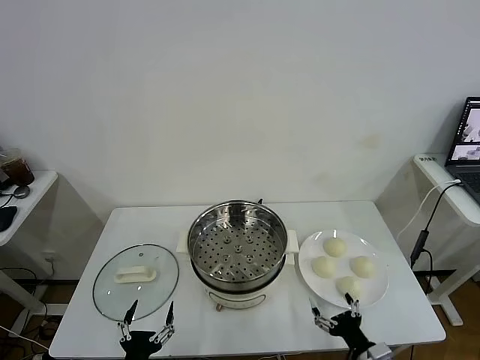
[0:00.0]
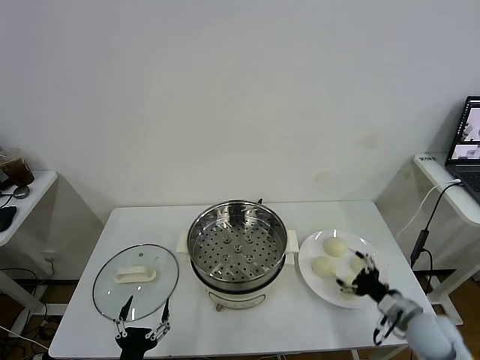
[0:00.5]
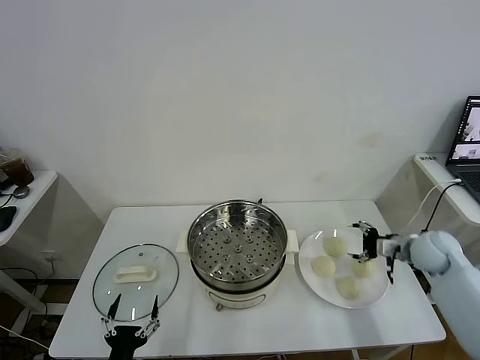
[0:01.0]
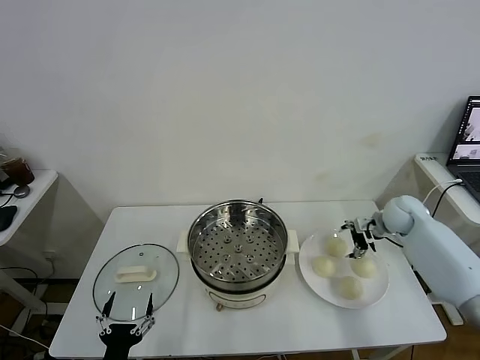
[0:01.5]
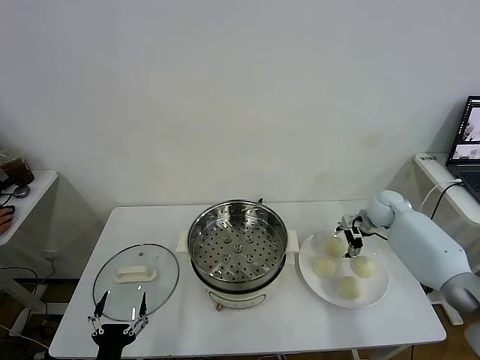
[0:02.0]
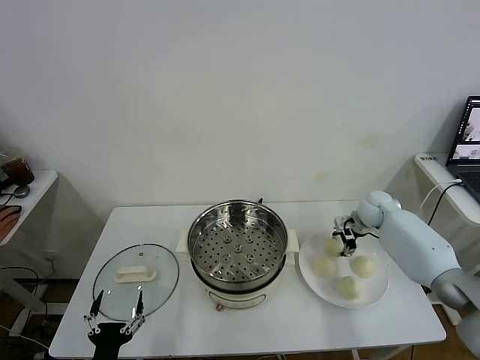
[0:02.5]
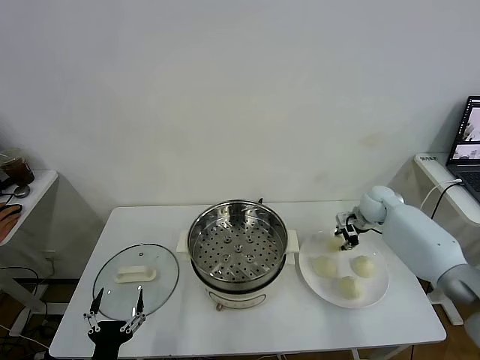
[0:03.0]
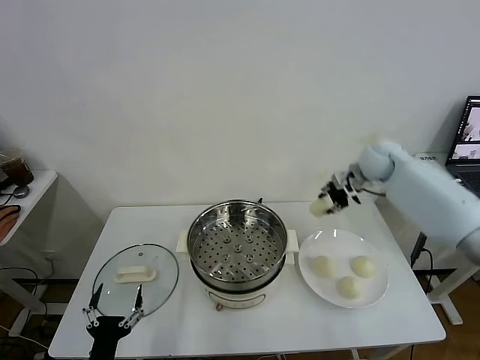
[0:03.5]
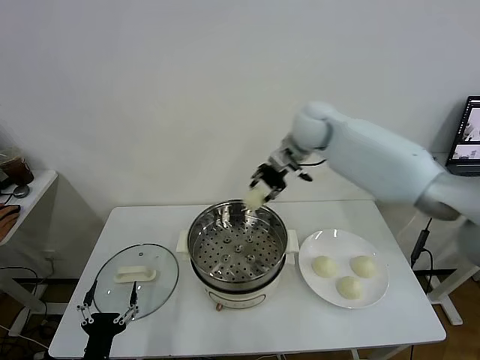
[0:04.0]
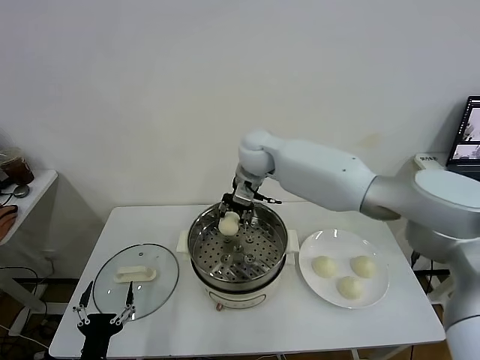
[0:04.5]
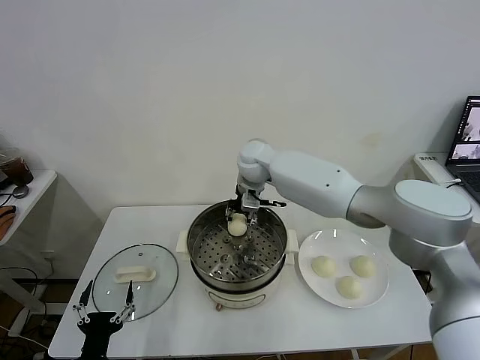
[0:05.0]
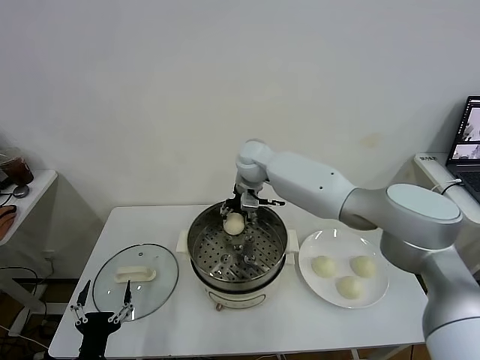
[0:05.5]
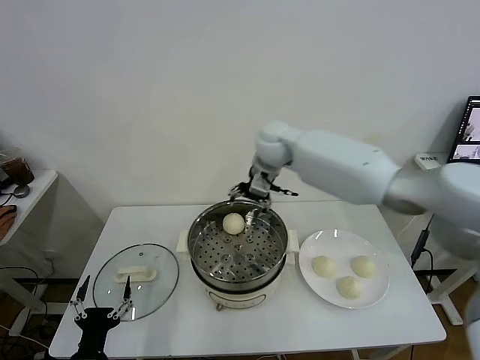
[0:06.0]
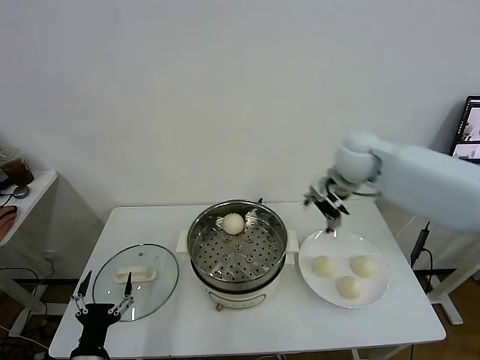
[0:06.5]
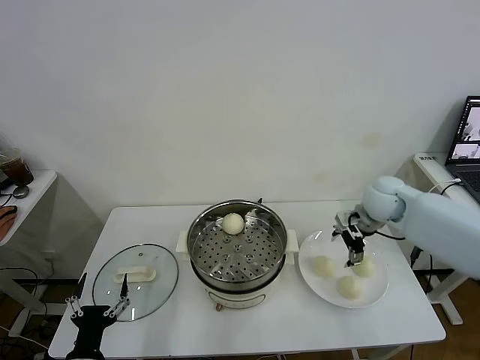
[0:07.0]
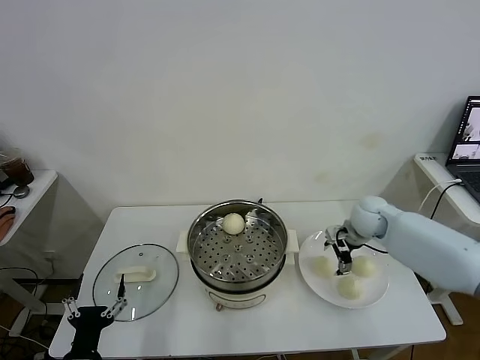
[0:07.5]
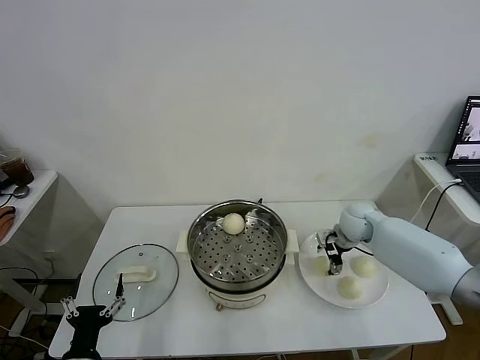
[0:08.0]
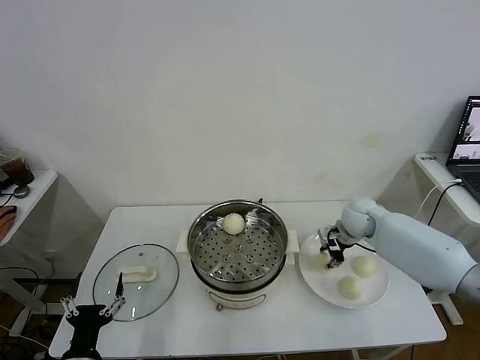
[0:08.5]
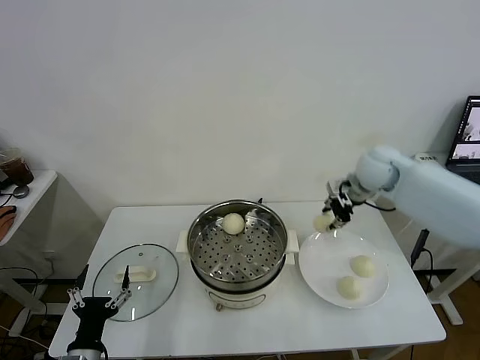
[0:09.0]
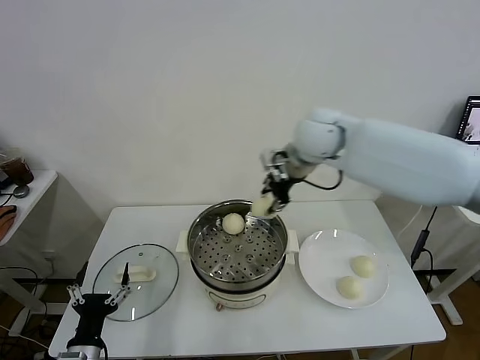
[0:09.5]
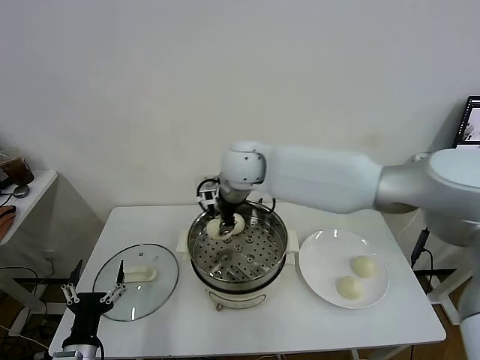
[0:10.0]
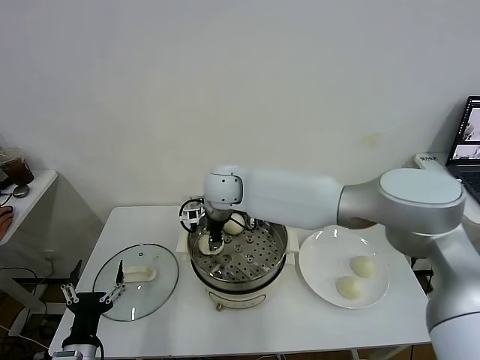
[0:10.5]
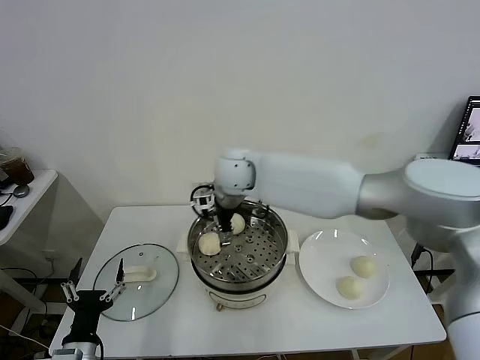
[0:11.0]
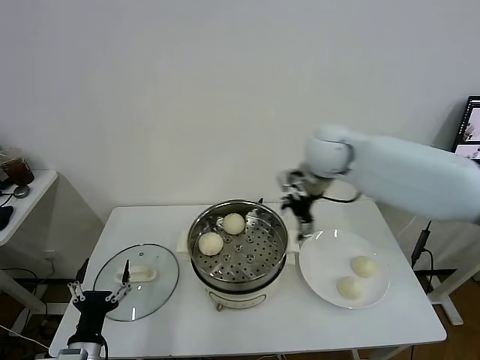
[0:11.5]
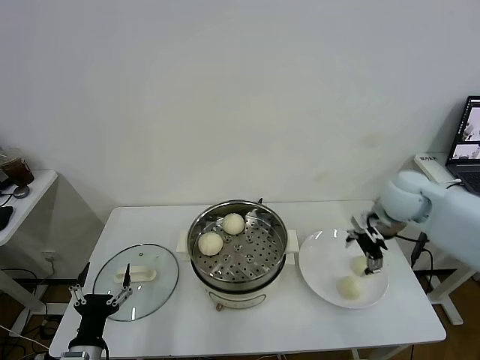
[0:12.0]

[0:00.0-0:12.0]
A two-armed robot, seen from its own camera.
Task of the whole recording: take steamed baozi put them in steamer.
Step, 0:00.0 to 0:02.5: Grasp the baozi in the plate with right gripper.
Step, 0:03.0 to 0:05.5: Place the baozi on the steamer with right gripper.
Step, 0:06.5 to 0:08.5: Grasp the baozi in the plate with right gripper.
Step, 0:09.0 to 0:10.5: Place the baozi on the steamer with right gripper.
0:02.0 to 0:04.0: The right gripper shifts some 35 cm to the left and upward, and closes up.
0:04.0 to 0:06.0: The right gripper reaches roughly 5 cm to the left, then returns, and opens up.
0:06.0 to 0:08.0: The right gripper is displaced downward and to the right by about 30 cm, and closes its fingers.
0:08.0 to 0:10.0: The right gripper moves to the left and upward, some 35 cm, and closes up.
0:10.0 to 0:12.0: The right gripper heads to the right, covering some 35 cm, and opens up.

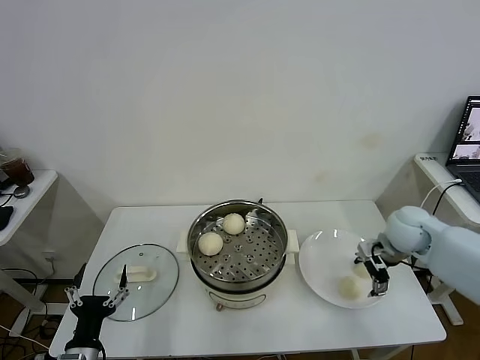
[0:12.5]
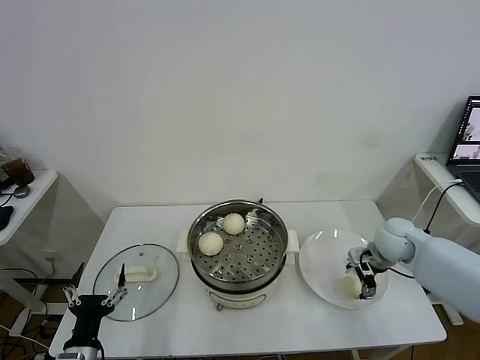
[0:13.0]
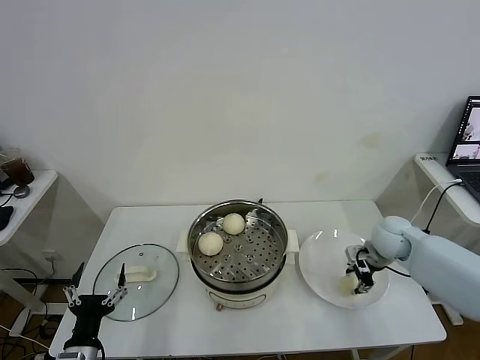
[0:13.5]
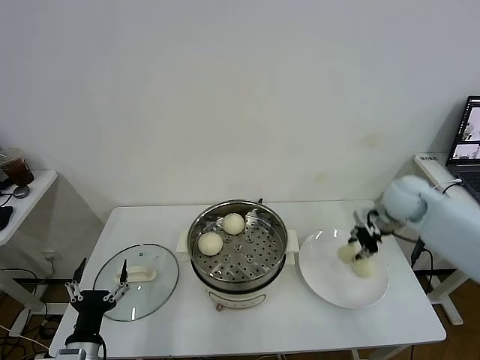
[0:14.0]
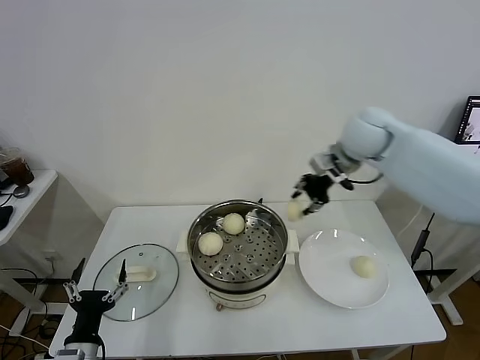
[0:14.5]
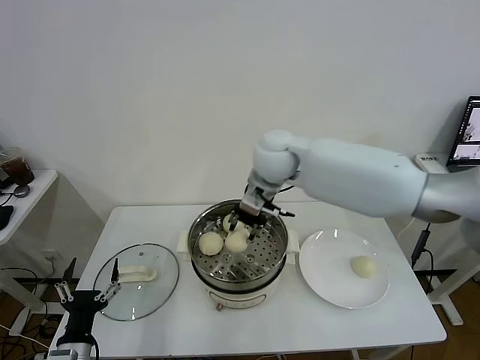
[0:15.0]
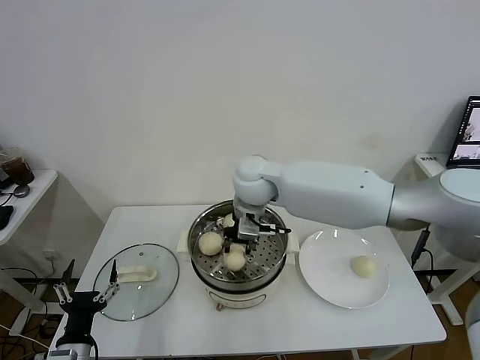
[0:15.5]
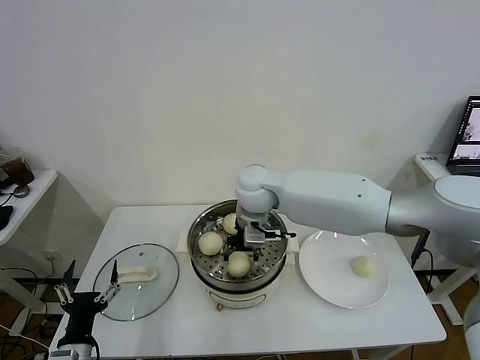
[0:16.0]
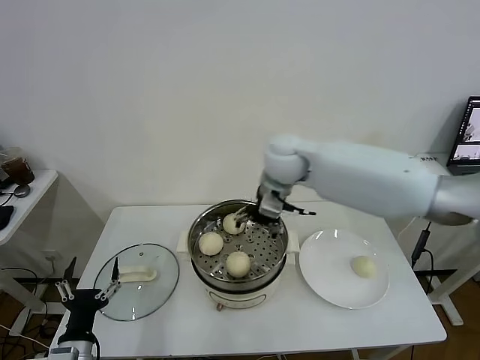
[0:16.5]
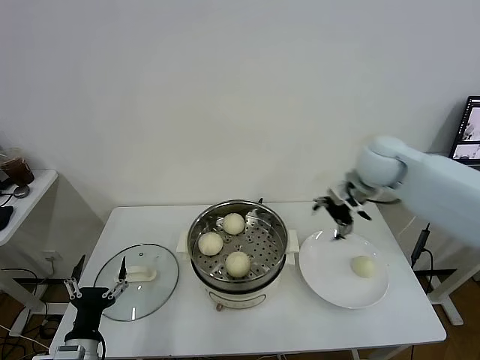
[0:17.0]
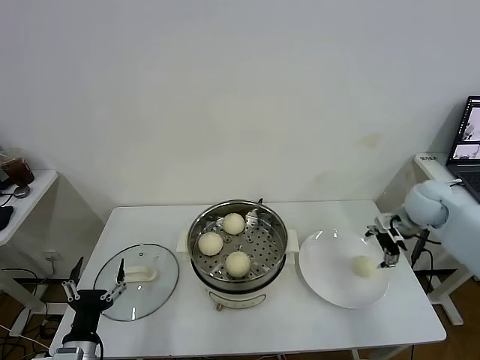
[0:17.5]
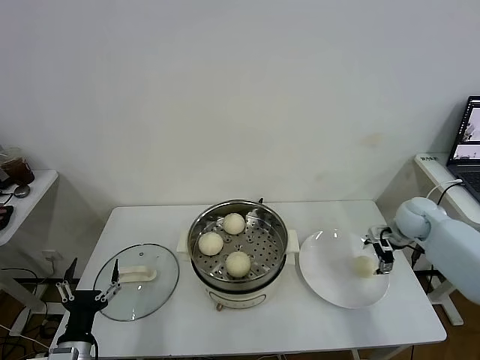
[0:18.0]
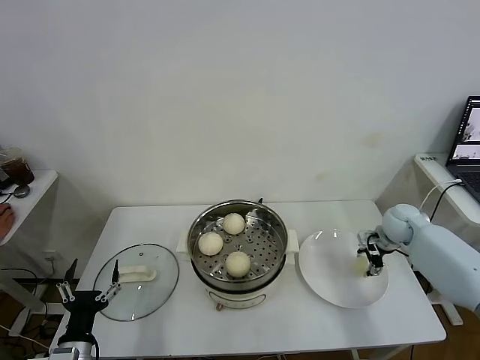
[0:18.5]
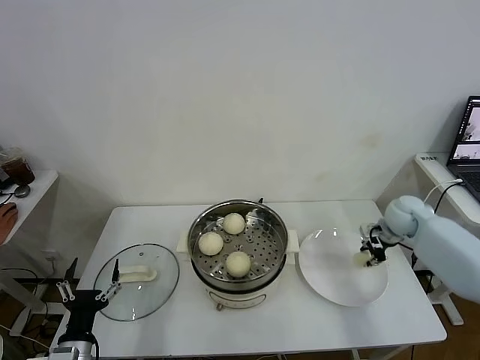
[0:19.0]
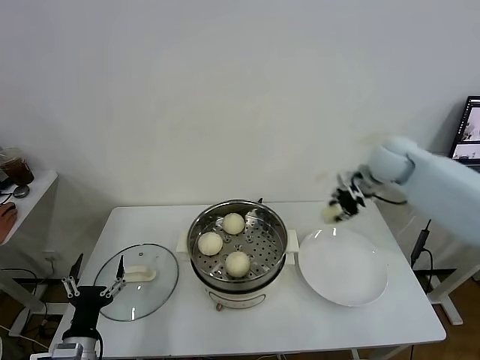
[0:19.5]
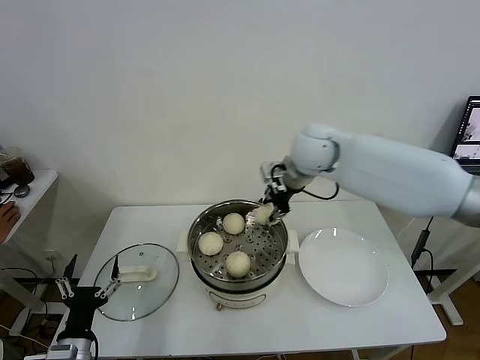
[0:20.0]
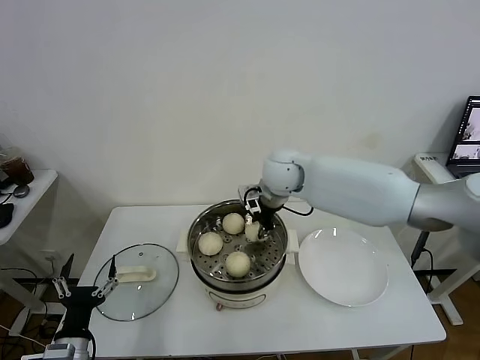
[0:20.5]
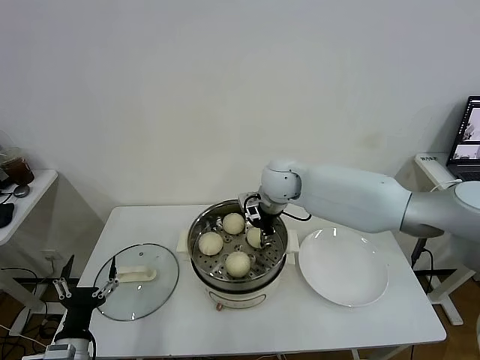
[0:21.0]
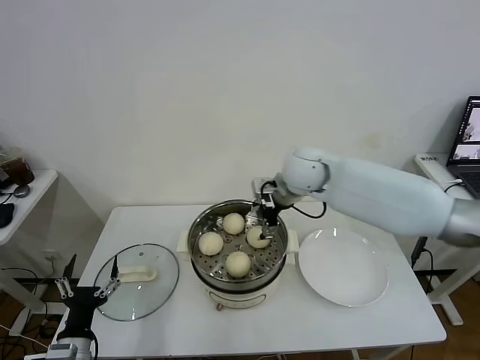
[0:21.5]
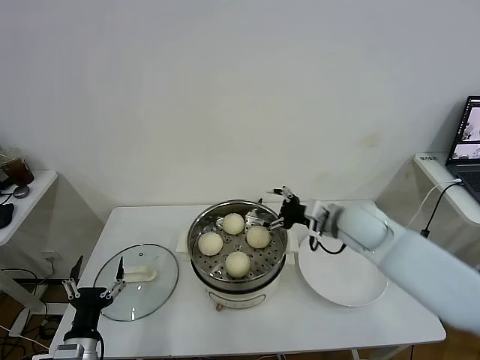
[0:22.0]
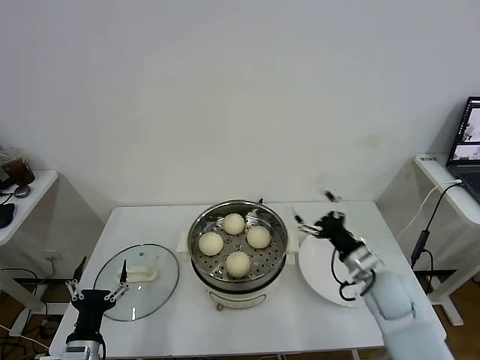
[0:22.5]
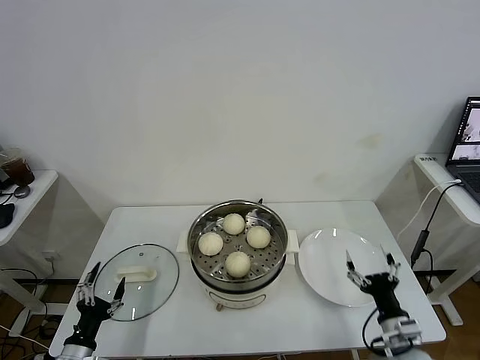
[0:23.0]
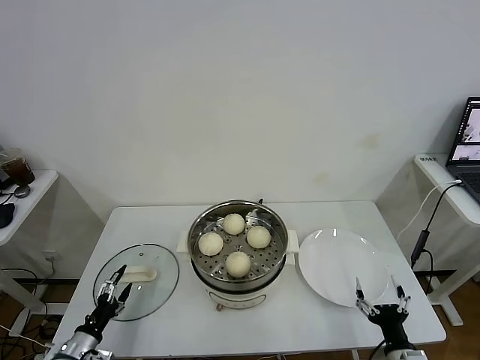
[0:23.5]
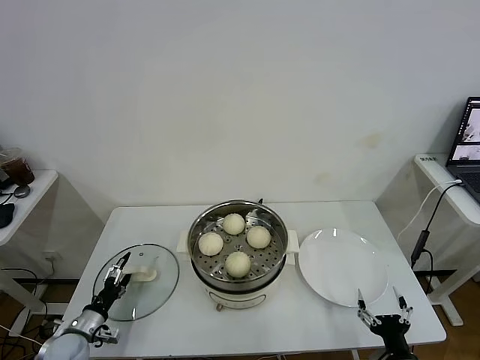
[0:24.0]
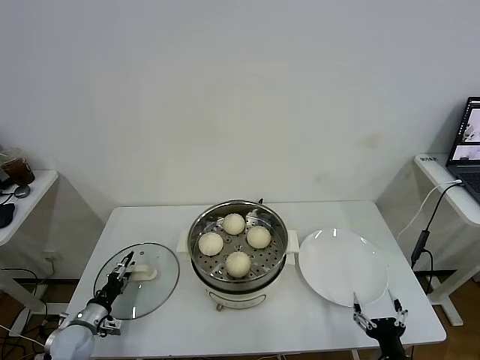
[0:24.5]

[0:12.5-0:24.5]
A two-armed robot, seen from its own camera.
Task of the whole recording: take steamed baozi put them in steamer.
Step, 0:14.0 to 0:16.0: Place the baozi on the steamer with right gripper.
Step, 0:16.5 to 0:18.5: Grasp the baozi in the plate with right gripper.
Step, 0:19.0 to 0:21.0: Place the baozi on the steamer with right gripper.
0:12.5 to 0:14.5: The right gripper travels upward, to the left and forward by roughly 25 cm, and closes up.
0:14.5 to 0:16.5: The right gripper goes approximately 10 cm to the left, and opens up.
0:16.5 to 0:18.5: The right gripper goes roughly 35 cm to the right and downward, and closes.
0:18.5 to 0:20.5: The right gripper heads to the left and upward, covering some 35 cm, and closes up.
0:20.5 to 0:22.5: The right gripper is displaced to the right, backward and downward by some 35 cm, and opens its fingers.
0:22.5 to 0:24.5: The left gripper travels forward, downward and to the left by some 20 cm, and closes its fingers; the right gripper is displaced backward and downward by roughly 25 cm.

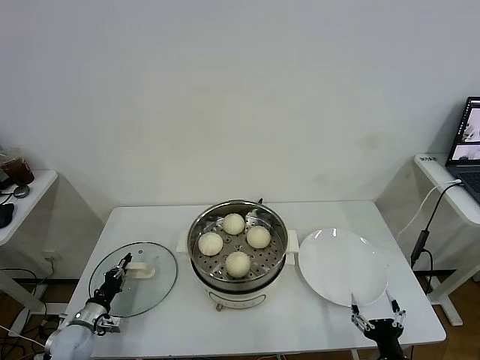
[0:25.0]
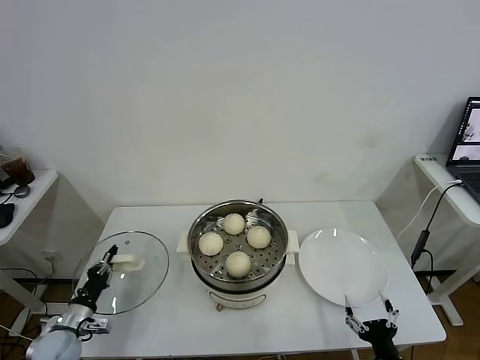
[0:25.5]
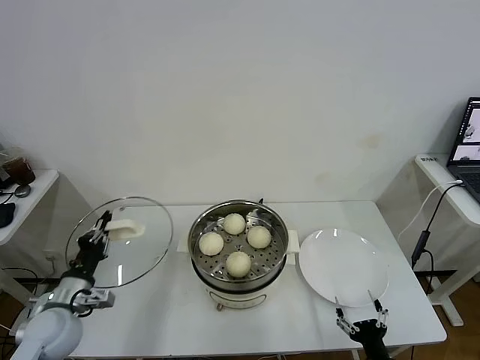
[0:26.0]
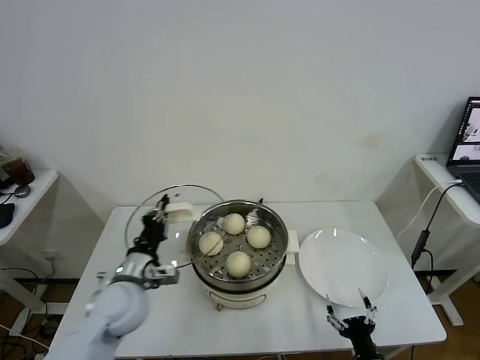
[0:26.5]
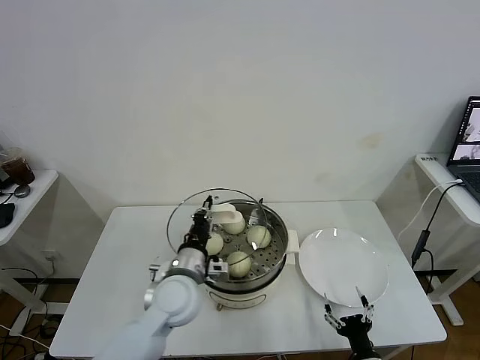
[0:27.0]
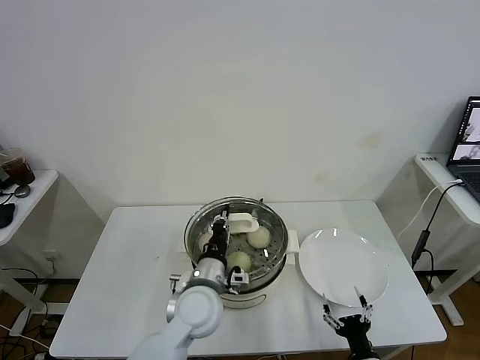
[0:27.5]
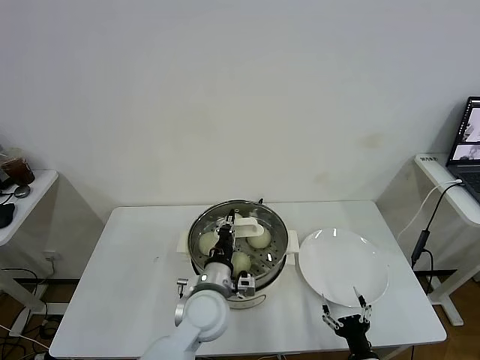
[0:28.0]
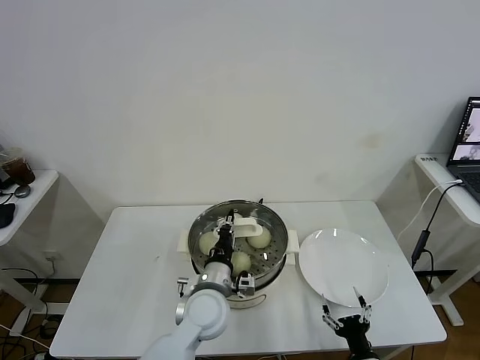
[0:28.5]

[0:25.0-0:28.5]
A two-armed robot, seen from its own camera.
Task of the whole recording: take steamed baozi put them in steamer.
0:25.0 to 0:27.0: The left gripper shifts about 35 cm to the right and upward; the right gripper shifts by roughly 5 cm.
0:27.0 to 0:28.5: The left gripper shifts about 5 cm to the right.
